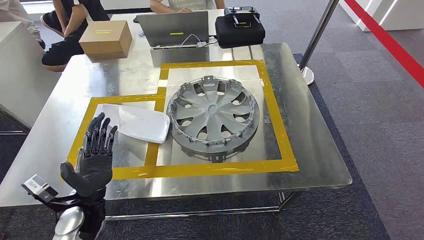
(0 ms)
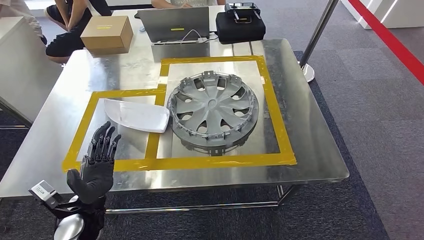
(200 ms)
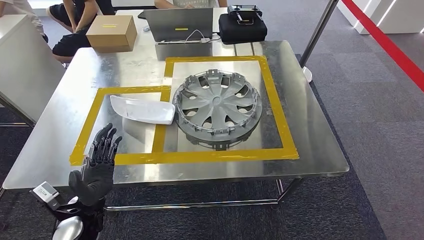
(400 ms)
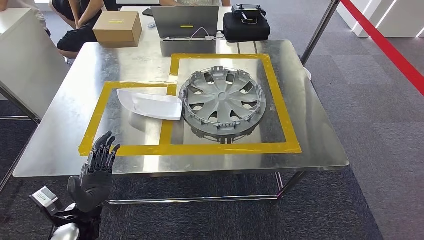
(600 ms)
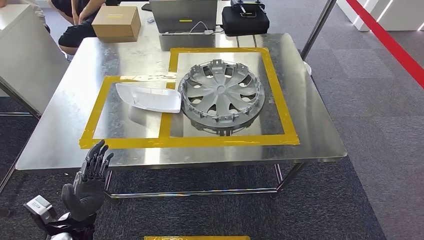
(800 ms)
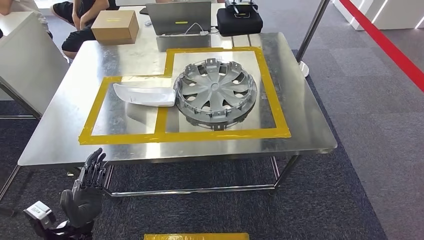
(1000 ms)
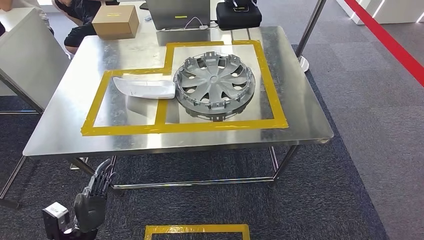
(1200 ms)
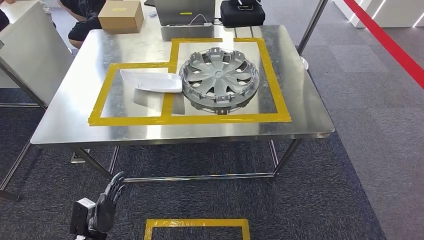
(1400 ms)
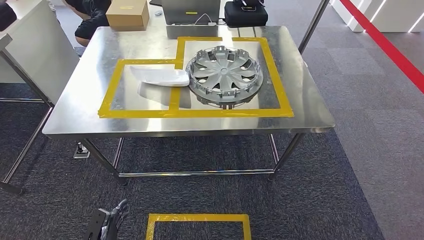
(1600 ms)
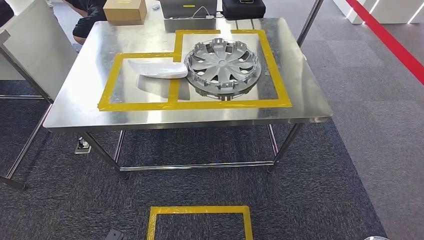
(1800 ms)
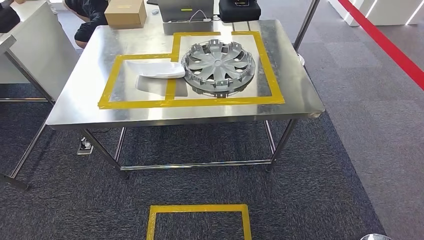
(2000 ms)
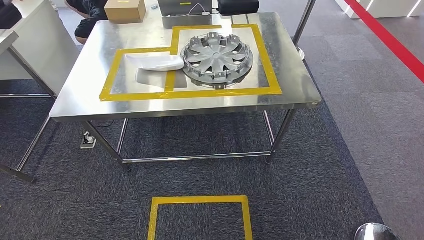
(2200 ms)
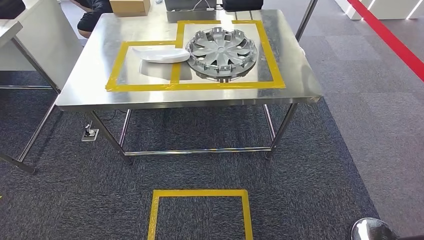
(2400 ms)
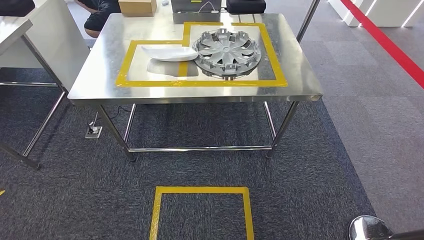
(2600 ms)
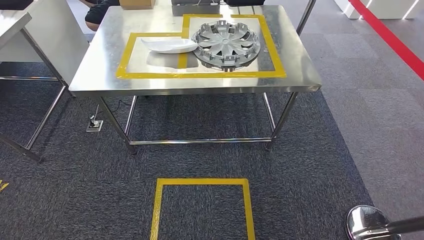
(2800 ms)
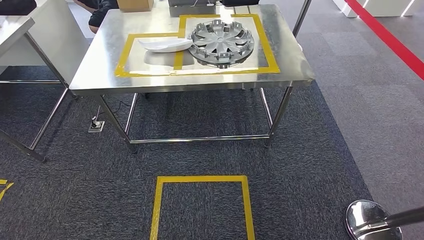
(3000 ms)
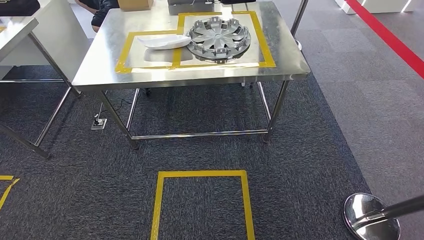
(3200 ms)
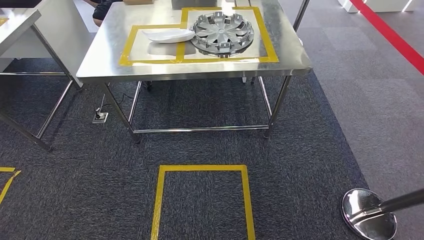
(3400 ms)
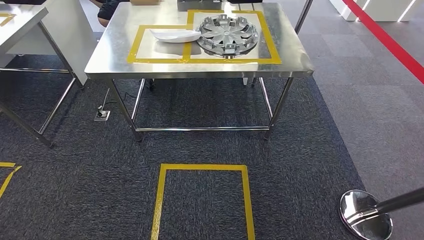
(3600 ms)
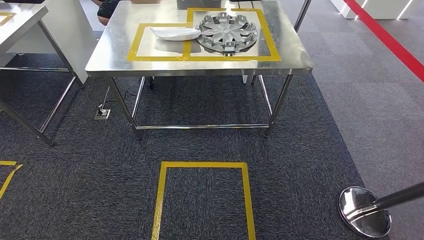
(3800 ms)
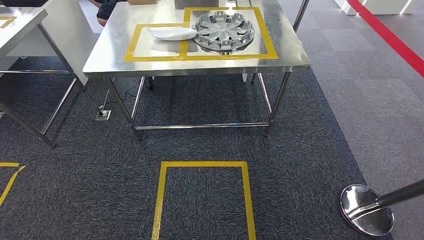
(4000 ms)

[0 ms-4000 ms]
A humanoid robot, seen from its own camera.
Step, 0 ms to 4000 ms: Move to the initial position at the workbench.
